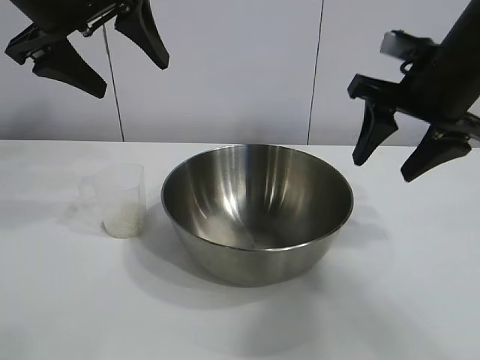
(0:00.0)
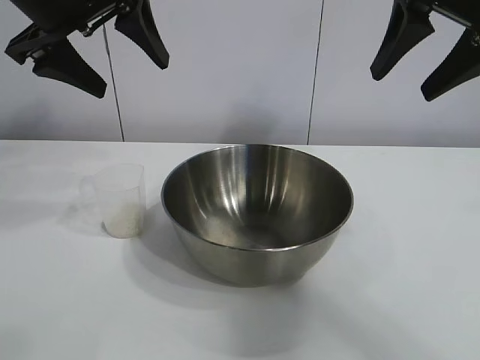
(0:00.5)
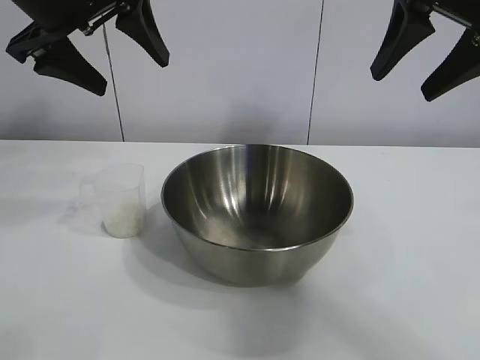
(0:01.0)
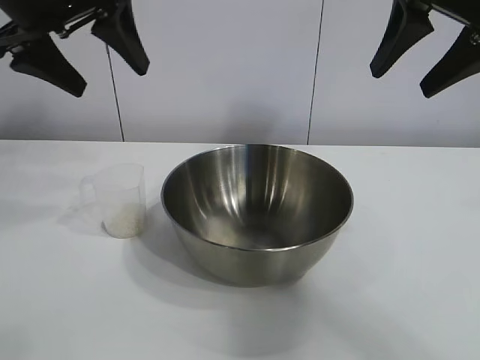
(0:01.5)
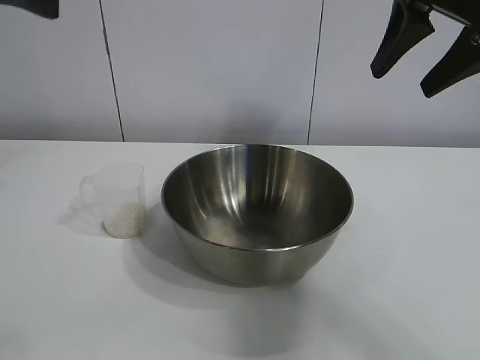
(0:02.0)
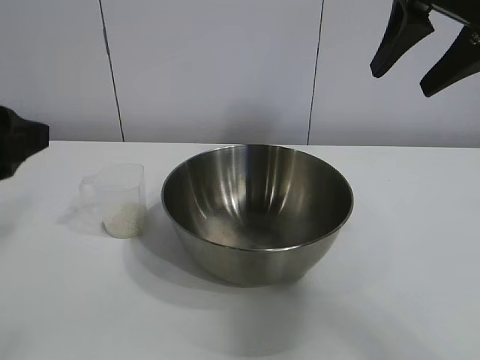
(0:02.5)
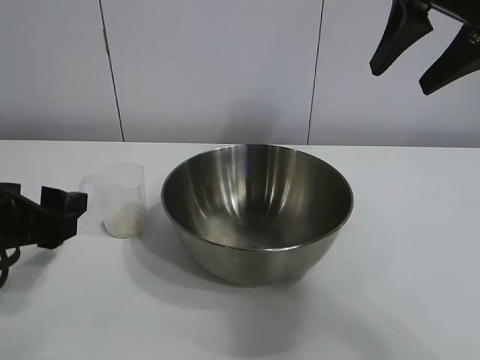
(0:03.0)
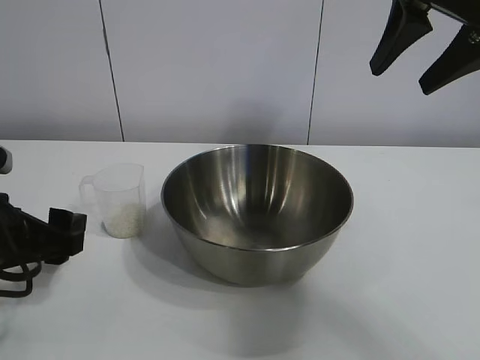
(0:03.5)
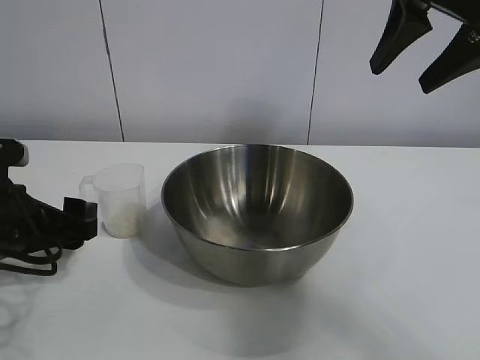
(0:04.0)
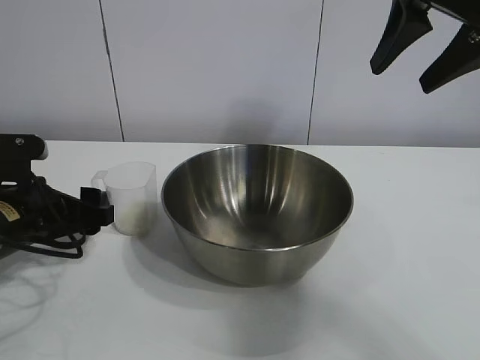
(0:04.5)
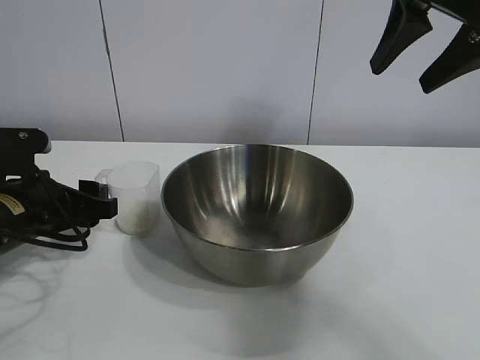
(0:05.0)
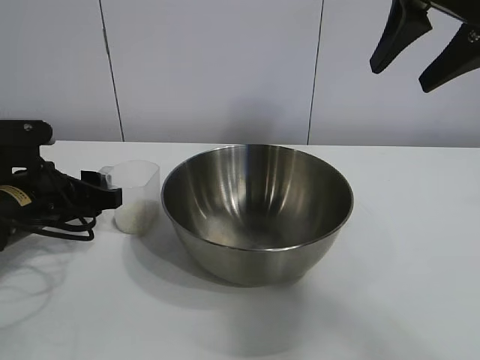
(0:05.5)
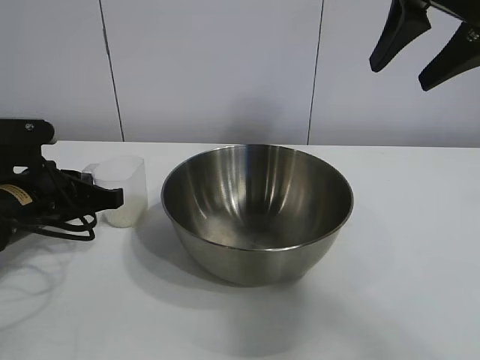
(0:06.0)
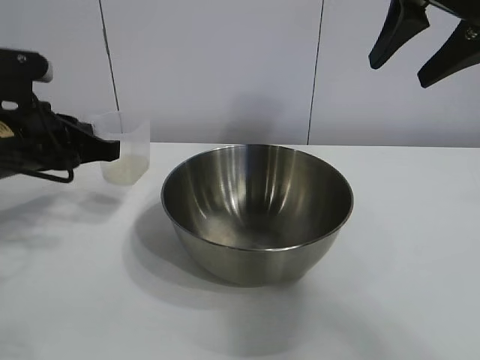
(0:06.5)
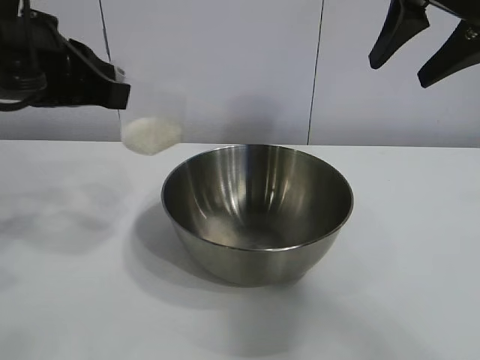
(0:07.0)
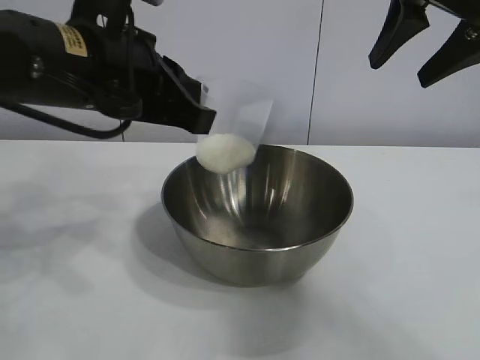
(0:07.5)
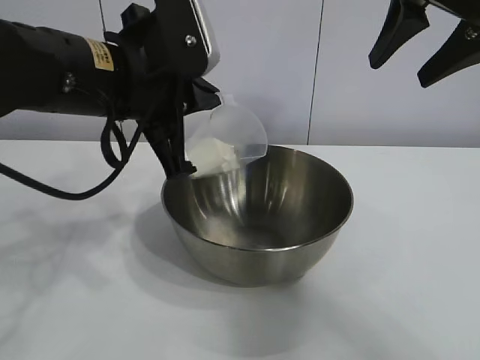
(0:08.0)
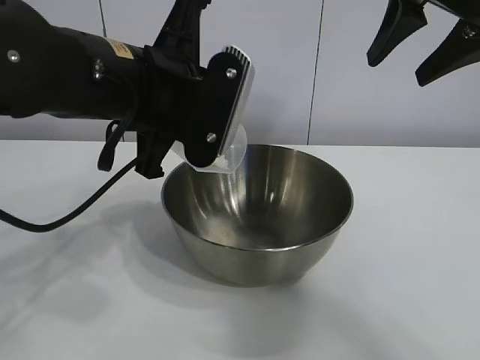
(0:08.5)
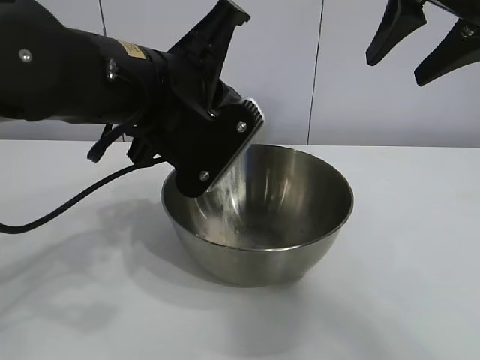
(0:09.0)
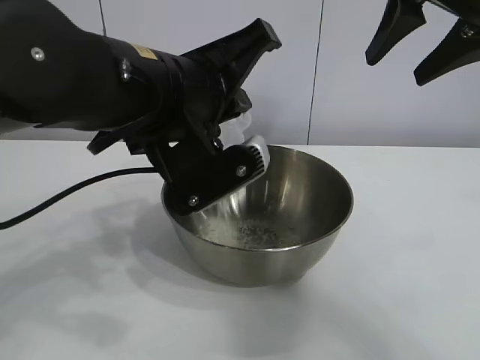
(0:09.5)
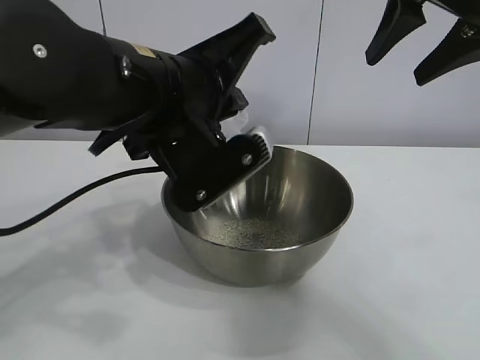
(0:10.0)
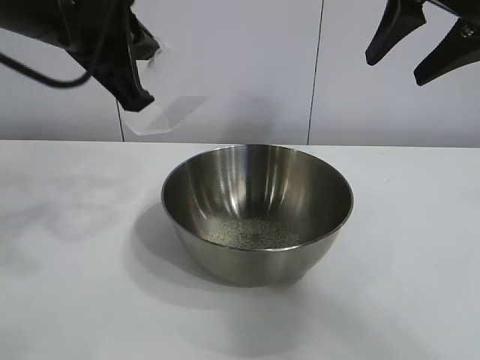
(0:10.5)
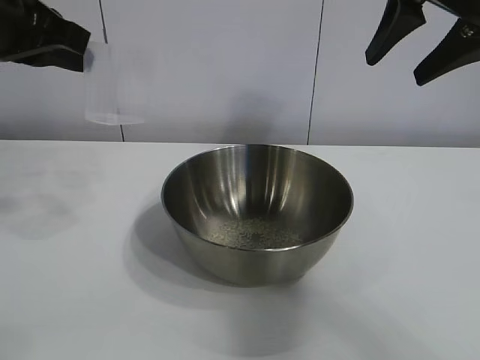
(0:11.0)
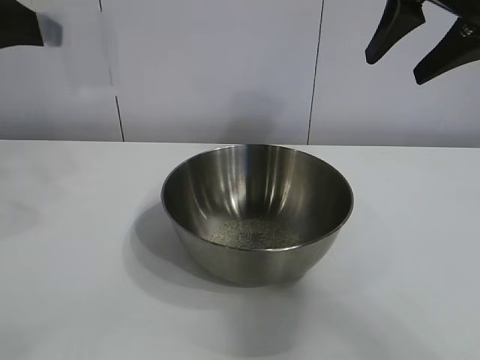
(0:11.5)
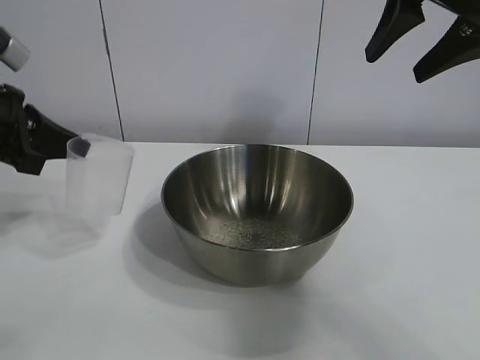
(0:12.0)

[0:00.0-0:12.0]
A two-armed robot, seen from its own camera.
Task of the whole recording: the right gripper grasp the rice container and place it in the center of the table, the left gripper grasp the rice scoop and pour the rice into the rice container.
Step, 0:00.0 to 0:05.5: Grasp the cup with rice in it with left gripper.
Step, 0:06.5 to 0:10.0: Pour the rice from the cup into the bowl with the left gripper.

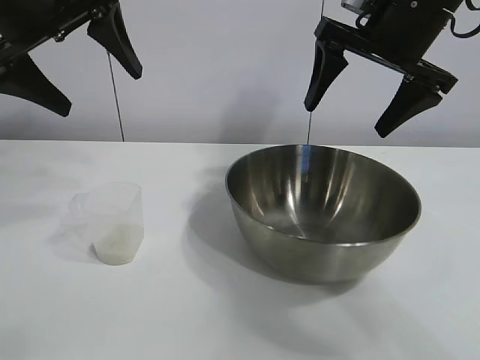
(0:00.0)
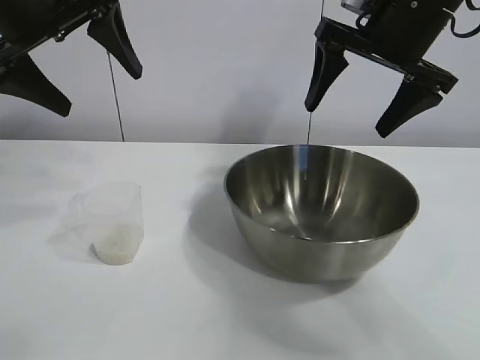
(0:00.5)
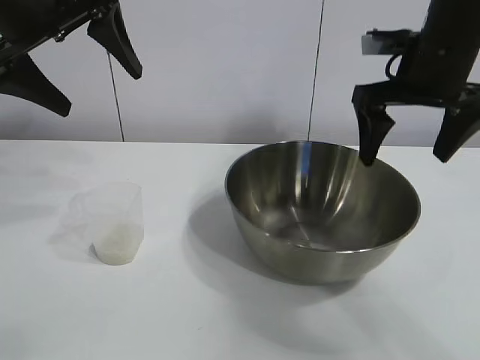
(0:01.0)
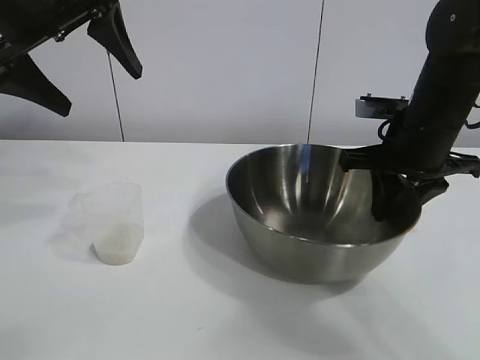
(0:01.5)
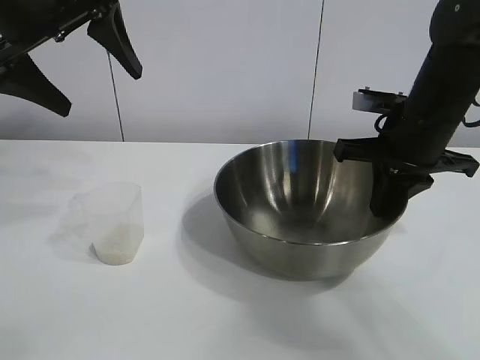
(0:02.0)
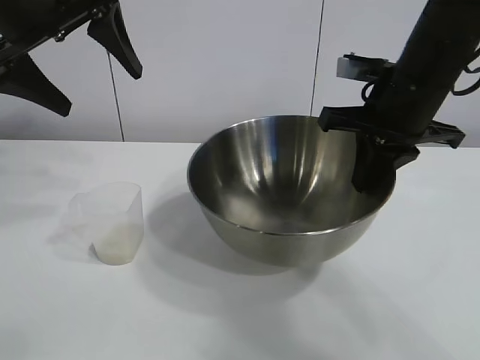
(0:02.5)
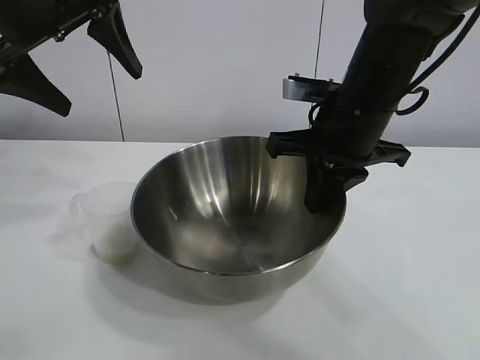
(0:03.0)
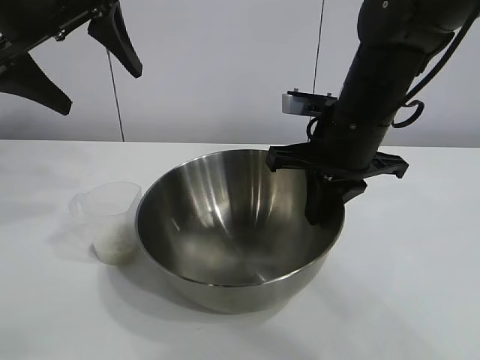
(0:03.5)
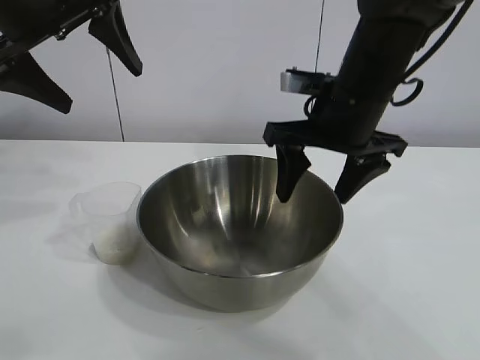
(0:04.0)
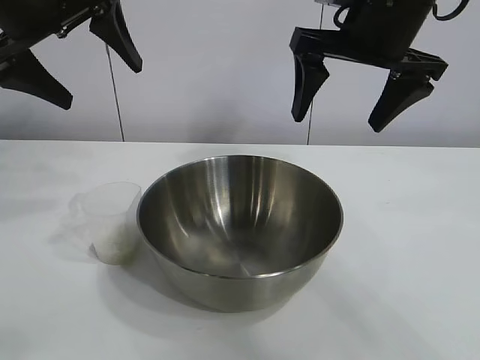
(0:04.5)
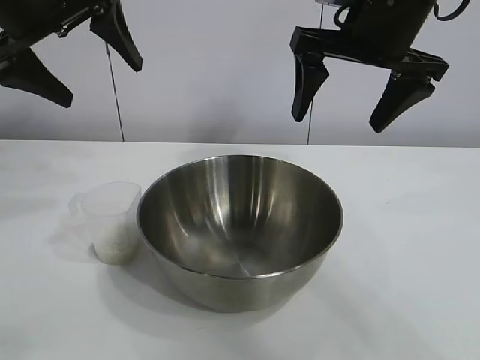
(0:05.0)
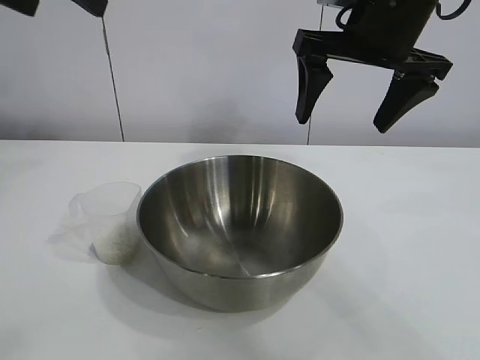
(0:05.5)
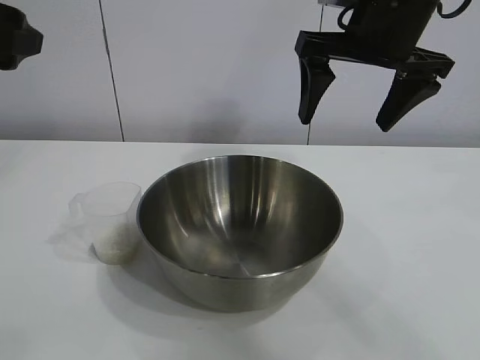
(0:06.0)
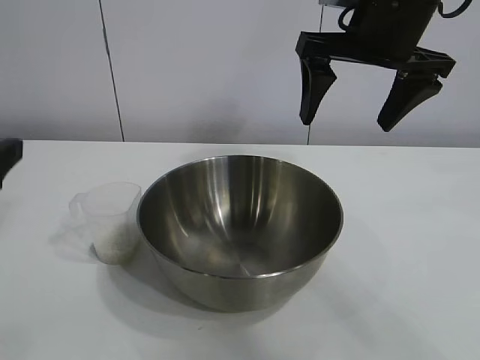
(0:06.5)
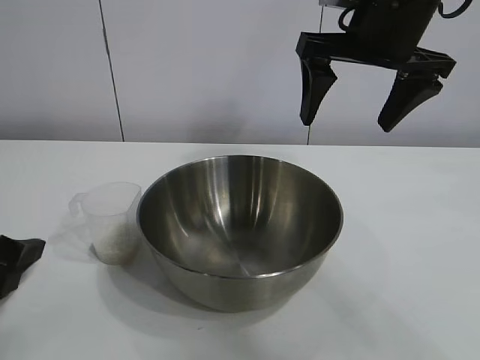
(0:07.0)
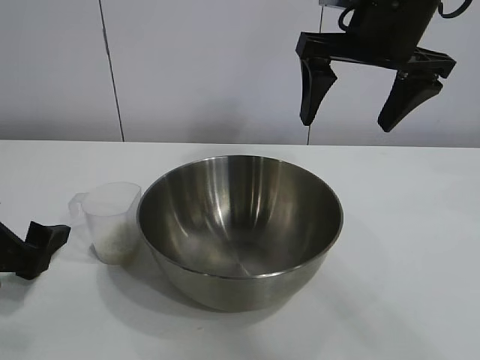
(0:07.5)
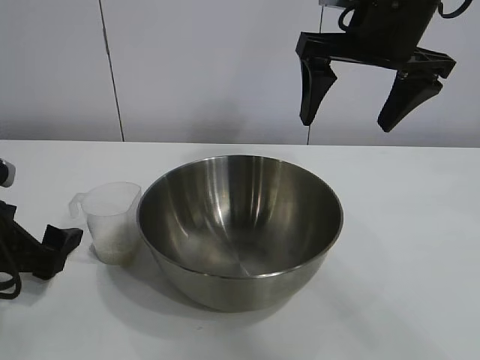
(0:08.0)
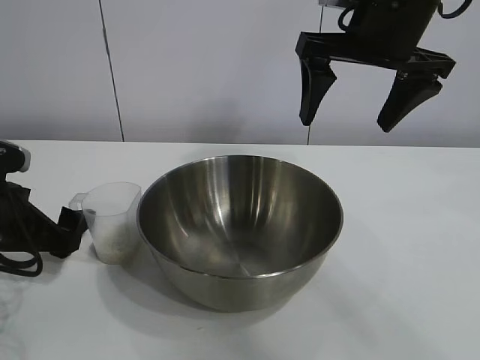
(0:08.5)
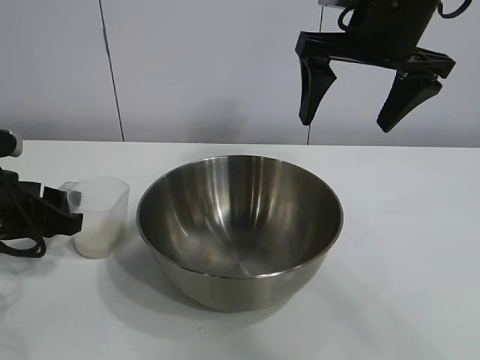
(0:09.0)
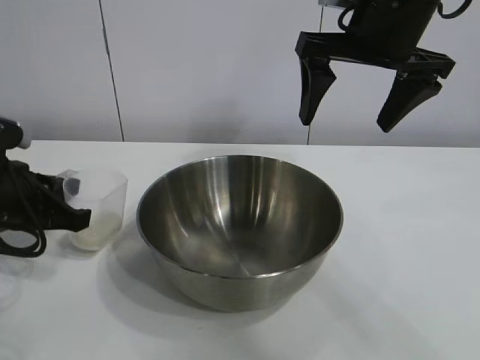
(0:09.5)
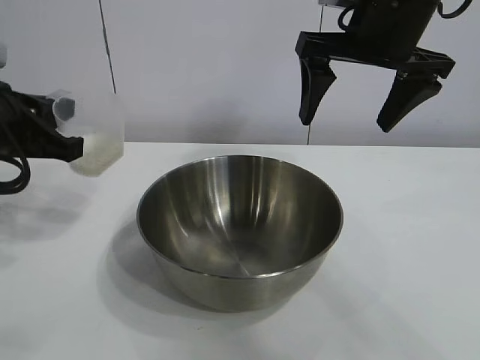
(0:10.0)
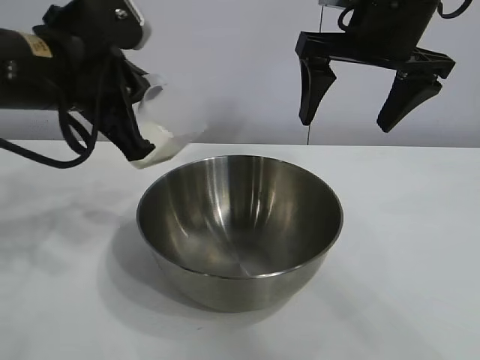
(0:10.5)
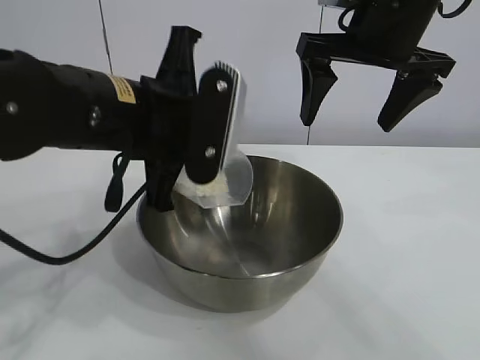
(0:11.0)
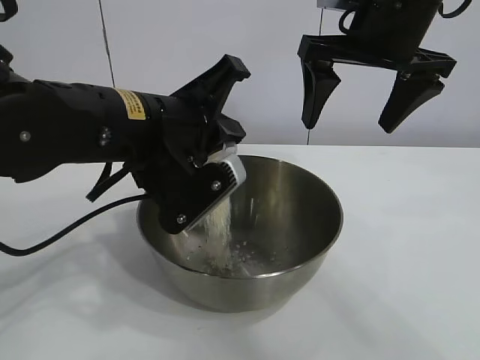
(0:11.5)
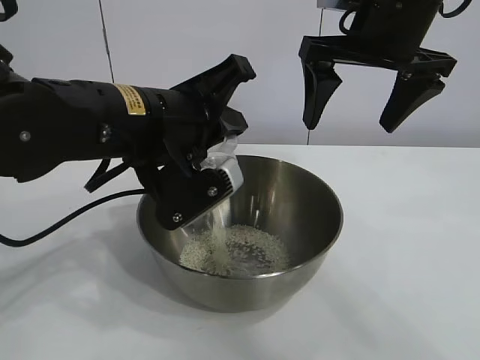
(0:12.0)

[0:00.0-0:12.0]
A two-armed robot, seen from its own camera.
Task of the whole recording: the right gripper grasp the rice container and place it in the center of the table, the left gripper grasp the rice scoop and pour the rice into the rice container.
Step, 0:01.0 to 0:03.5: Move the bowl in the center of view with right gripper.
Step, 0:04.0 to 0:09.0: Grasp the cup with rice in it with left gripper.

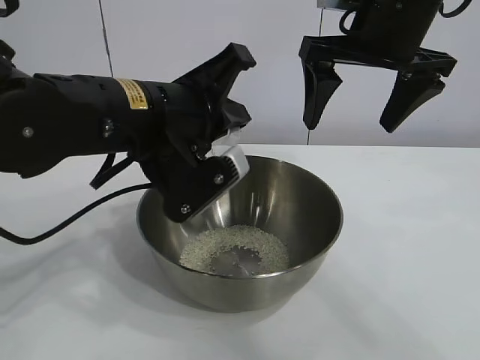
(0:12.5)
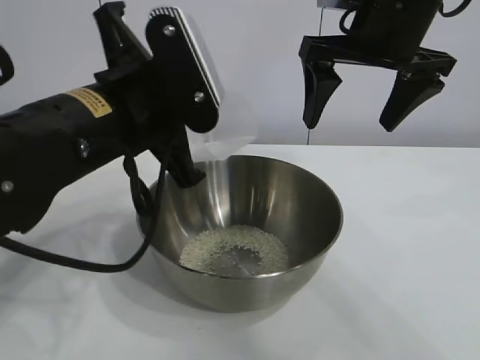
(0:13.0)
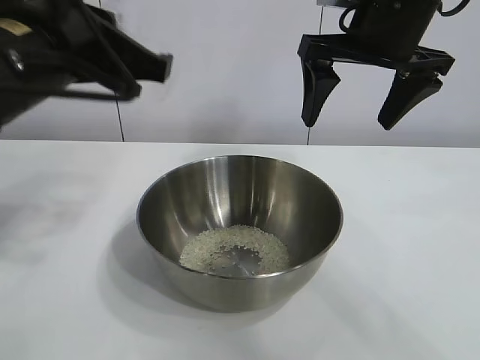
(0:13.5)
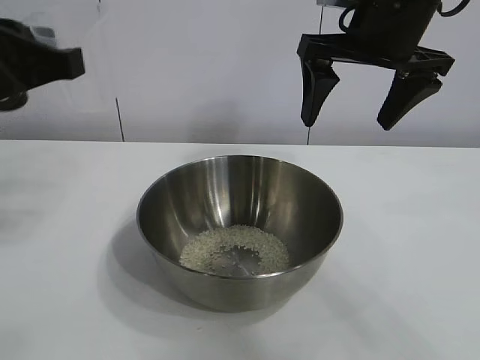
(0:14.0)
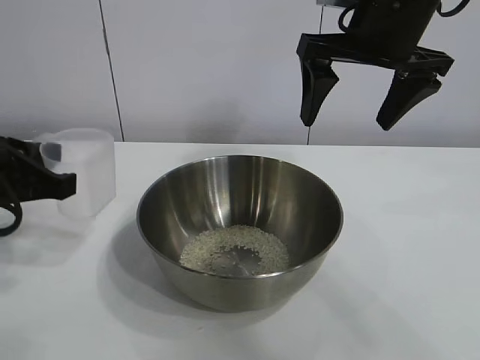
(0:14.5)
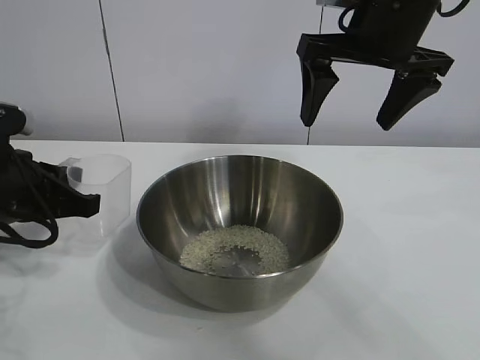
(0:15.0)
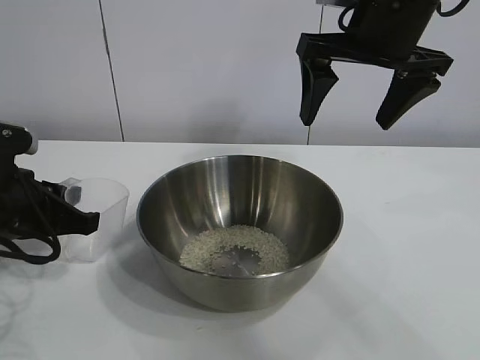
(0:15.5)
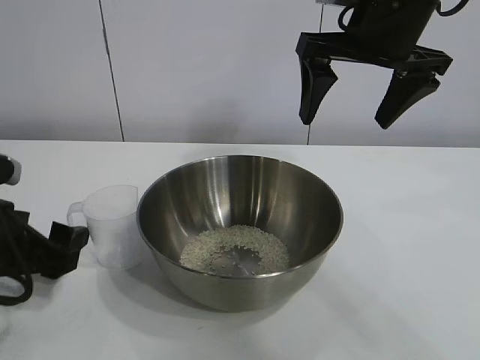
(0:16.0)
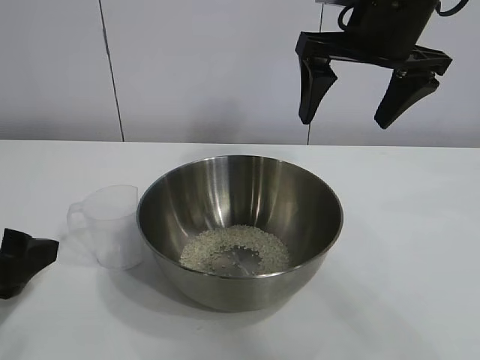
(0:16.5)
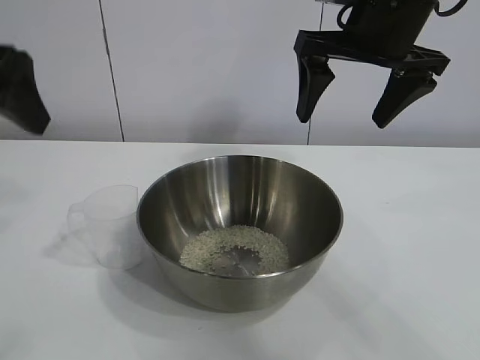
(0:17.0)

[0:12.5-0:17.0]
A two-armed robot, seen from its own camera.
Task of the whole recording: the right gripper grasp the rice container and place it in the center of the table, the left gripper grasp the rice scoop and pour the rice into the rice container.
Step, 0:12.5 to 0:15.5: Place the cup on the table with the left gripper.
